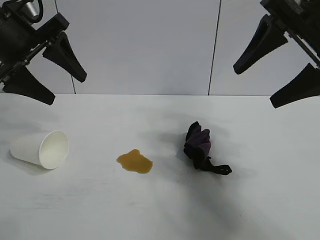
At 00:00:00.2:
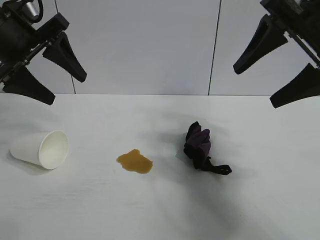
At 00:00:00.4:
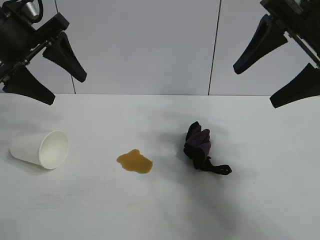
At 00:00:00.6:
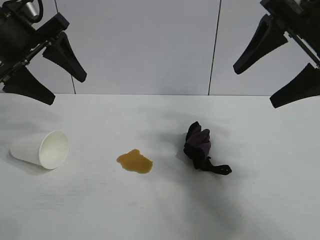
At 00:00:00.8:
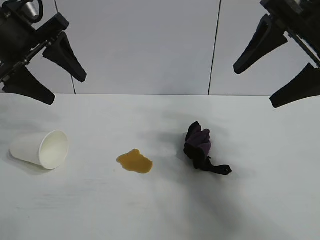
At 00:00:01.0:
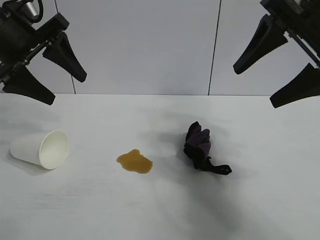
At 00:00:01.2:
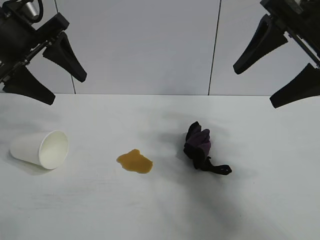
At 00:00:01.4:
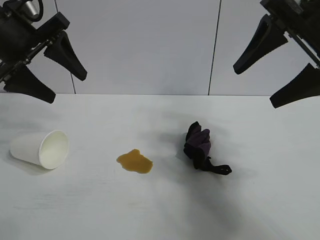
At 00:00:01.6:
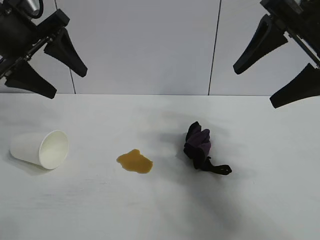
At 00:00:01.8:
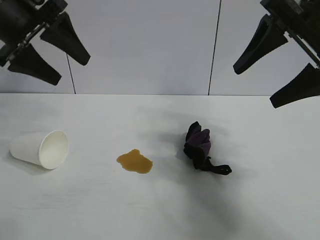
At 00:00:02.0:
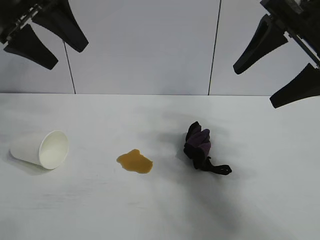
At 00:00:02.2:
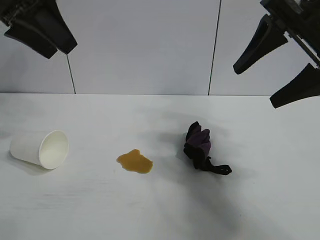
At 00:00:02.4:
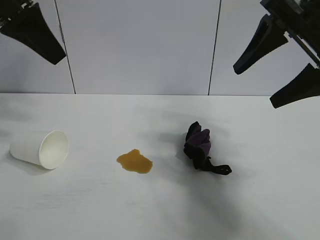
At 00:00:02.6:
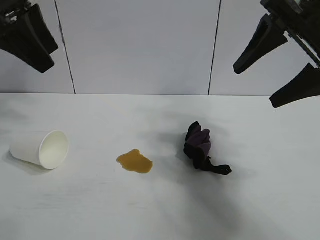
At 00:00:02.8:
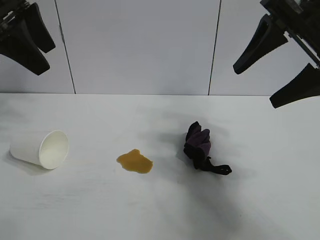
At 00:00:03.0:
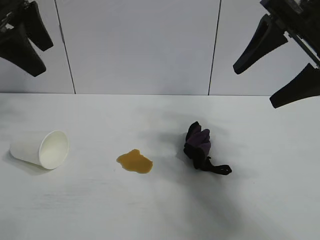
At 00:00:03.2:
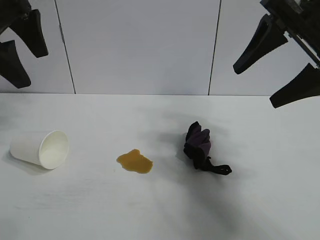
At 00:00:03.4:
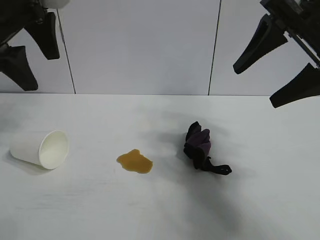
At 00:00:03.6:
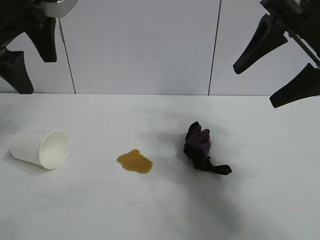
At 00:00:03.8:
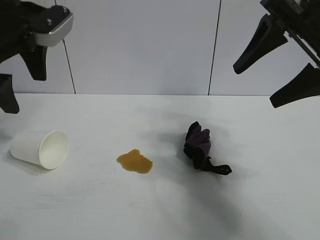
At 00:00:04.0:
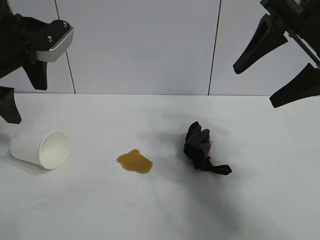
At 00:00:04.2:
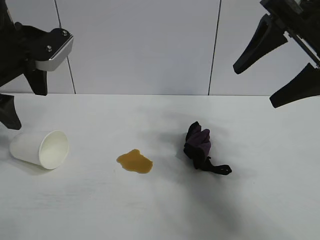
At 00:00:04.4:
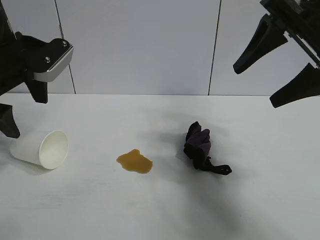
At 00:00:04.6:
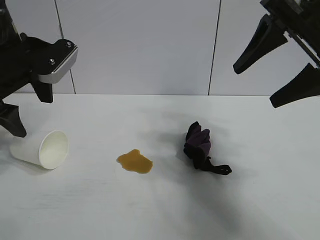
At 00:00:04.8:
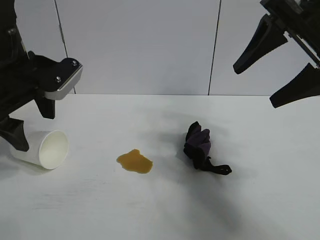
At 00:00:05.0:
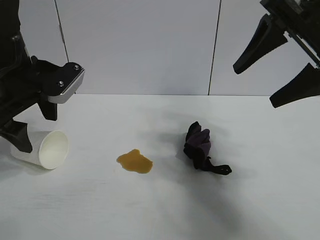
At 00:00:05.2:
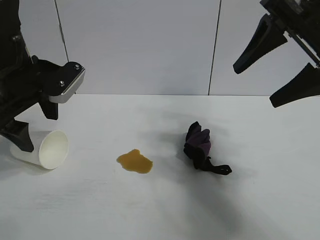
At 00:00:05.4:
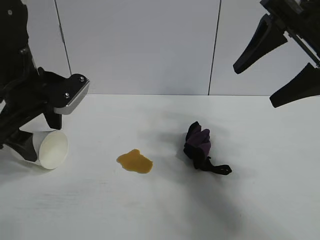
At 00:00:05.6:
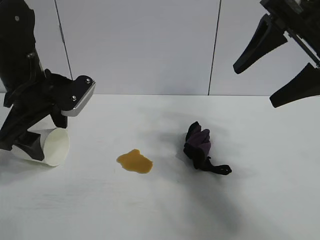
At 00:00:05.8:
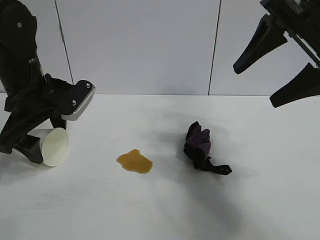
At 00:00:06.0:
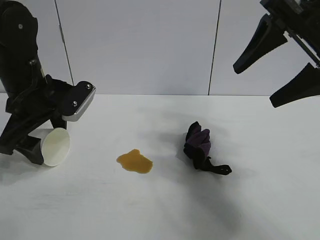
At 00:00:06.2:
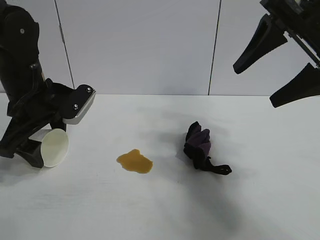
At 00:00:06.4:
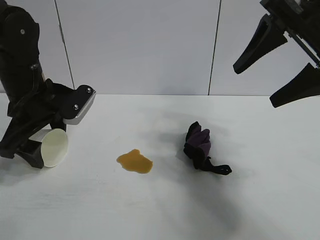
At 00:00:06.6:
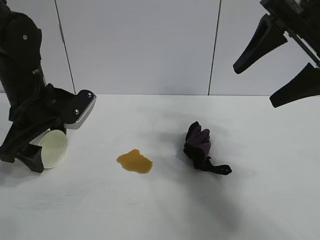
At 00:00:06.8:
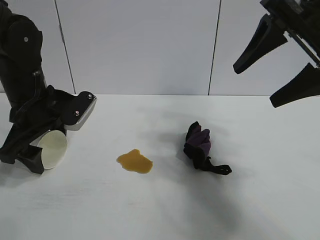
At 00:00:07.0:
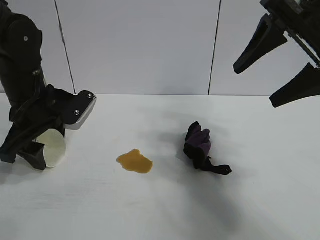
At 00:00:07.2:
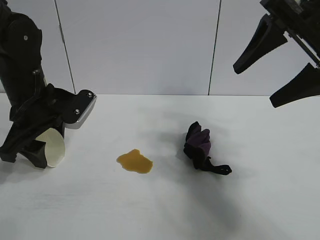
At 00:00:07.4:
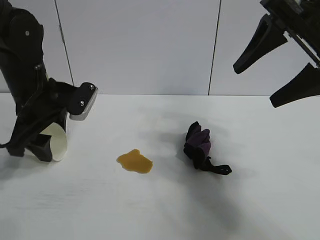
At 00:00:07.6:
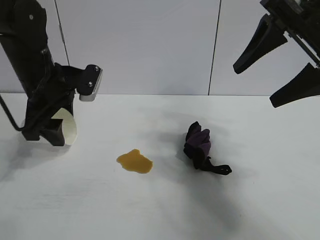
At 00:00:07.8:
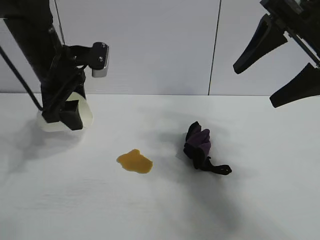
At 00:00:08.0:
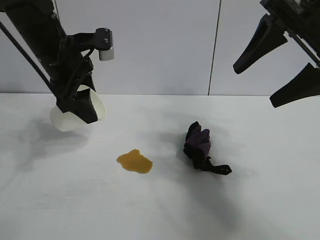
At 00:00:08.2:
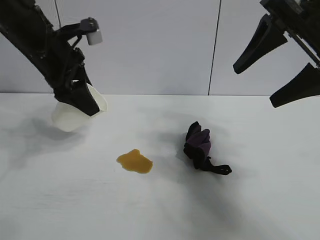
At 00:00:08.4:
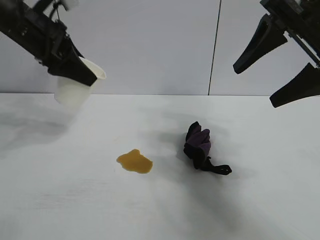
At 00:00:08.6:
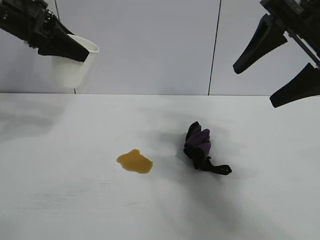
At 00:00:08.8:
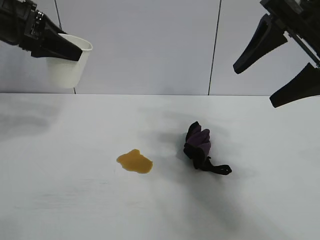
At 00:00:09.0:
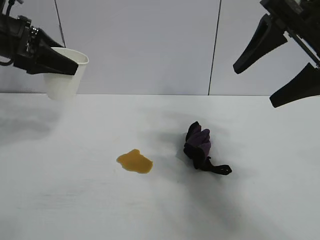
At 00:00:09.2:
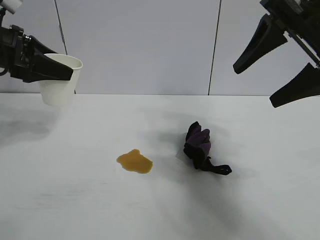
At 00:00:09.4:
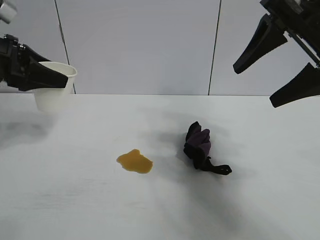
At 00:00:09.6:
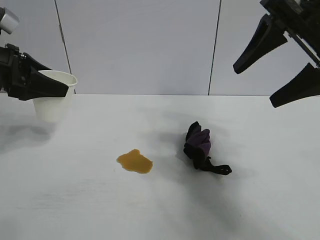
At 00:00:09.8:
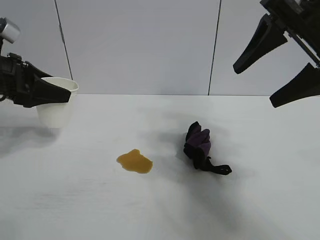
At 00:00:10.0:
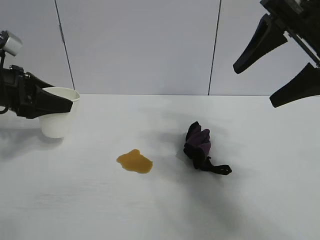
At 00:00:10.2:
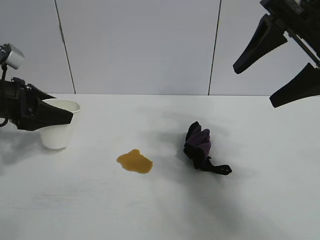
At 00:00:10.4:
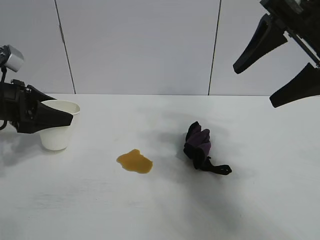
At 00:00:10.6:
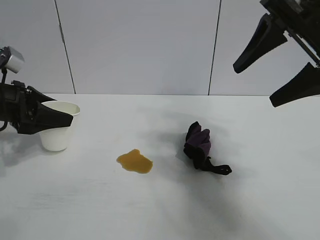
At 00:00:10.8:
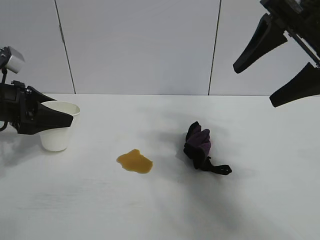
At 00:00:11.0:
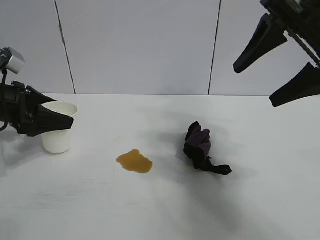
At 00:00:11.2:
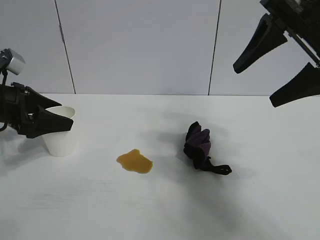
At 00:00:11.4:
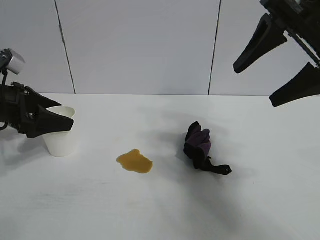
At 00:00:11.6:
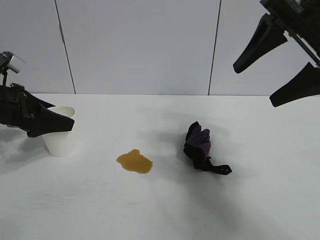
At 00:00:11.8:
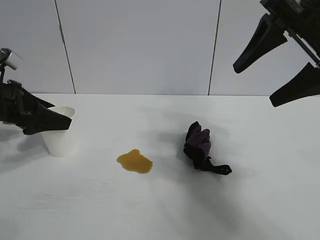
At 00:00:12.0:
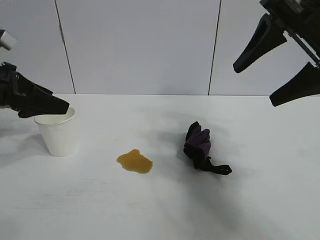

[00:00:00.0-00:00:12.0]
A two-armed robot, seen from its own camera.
Task of the whole recording: the left gripper pick up the fallen cup and place it upright, the right gripper grasp the black rag and wipe the stain on the table, the right gripper put the black rag back in its original position.
Step, 00:00:01.4 to 00:00:07.2: Grasp the paper cup with left gripper.
Step, 00:00:07.4 to 00:00:11.0: Stand the paper cup upright with left gripper.

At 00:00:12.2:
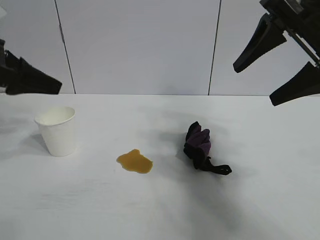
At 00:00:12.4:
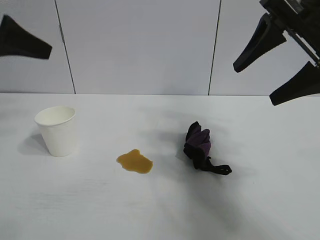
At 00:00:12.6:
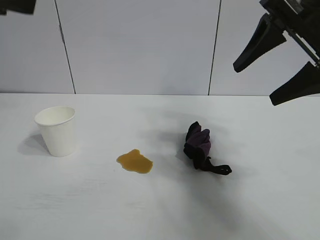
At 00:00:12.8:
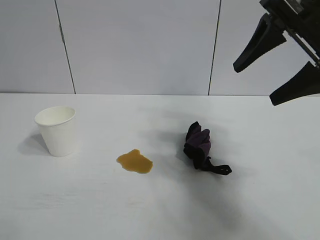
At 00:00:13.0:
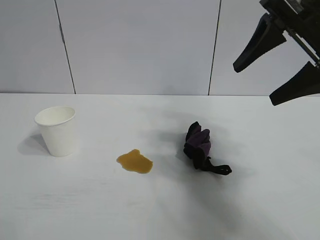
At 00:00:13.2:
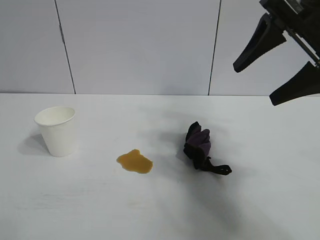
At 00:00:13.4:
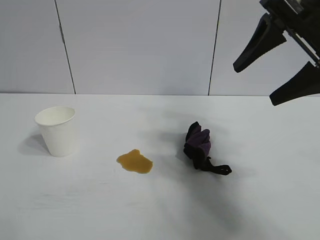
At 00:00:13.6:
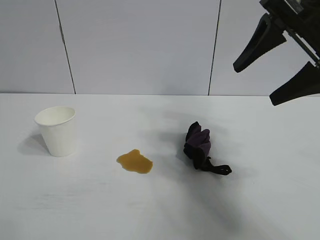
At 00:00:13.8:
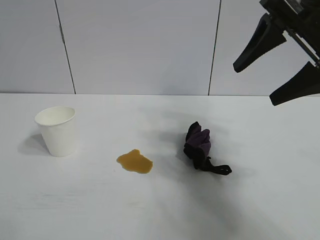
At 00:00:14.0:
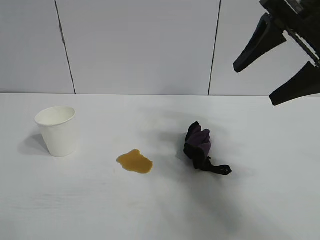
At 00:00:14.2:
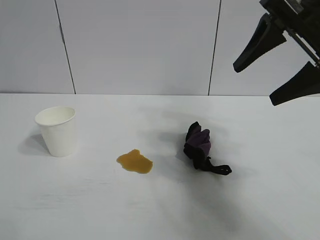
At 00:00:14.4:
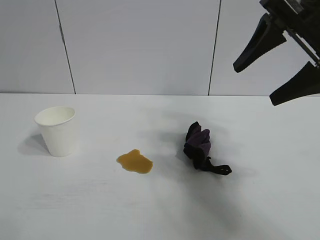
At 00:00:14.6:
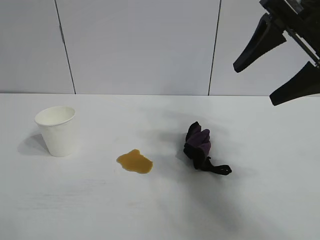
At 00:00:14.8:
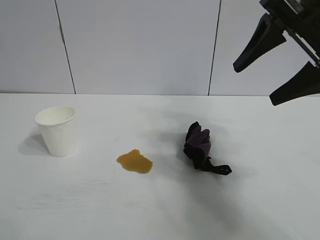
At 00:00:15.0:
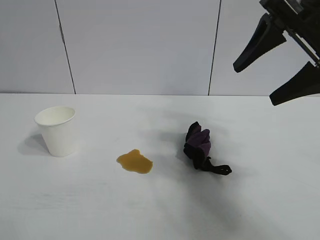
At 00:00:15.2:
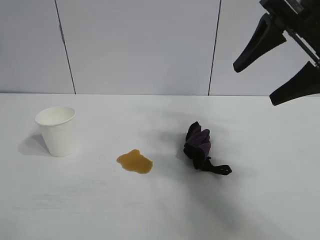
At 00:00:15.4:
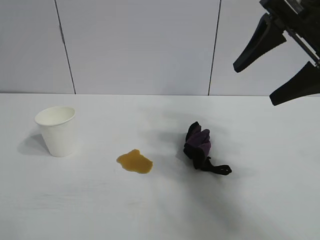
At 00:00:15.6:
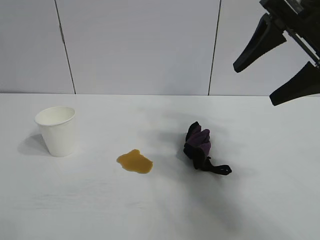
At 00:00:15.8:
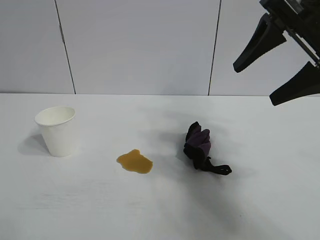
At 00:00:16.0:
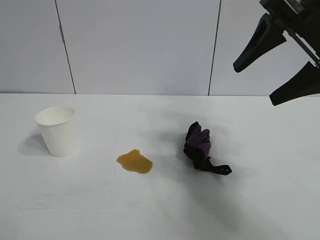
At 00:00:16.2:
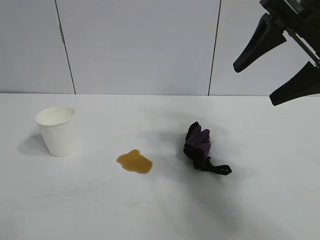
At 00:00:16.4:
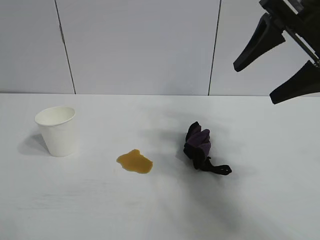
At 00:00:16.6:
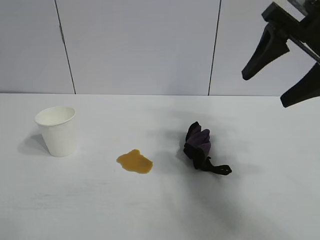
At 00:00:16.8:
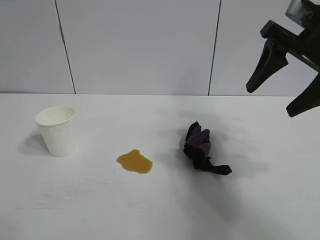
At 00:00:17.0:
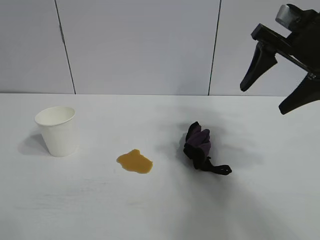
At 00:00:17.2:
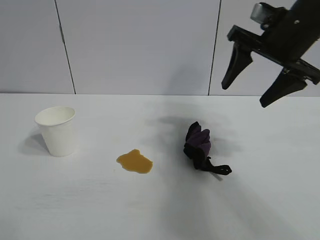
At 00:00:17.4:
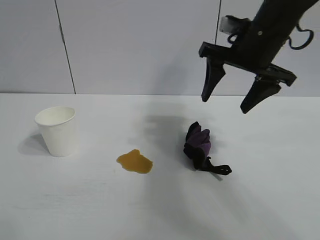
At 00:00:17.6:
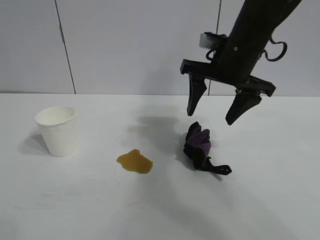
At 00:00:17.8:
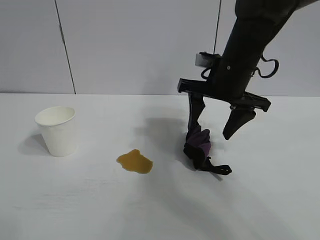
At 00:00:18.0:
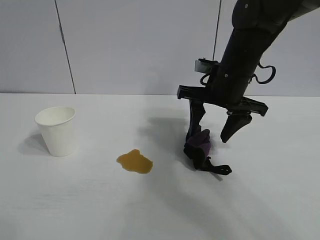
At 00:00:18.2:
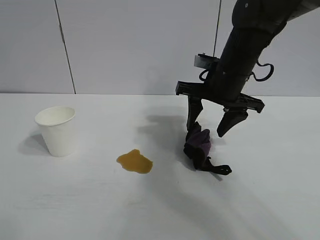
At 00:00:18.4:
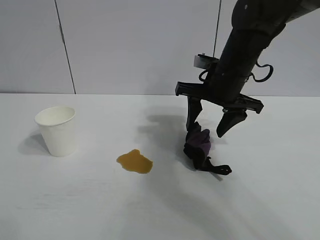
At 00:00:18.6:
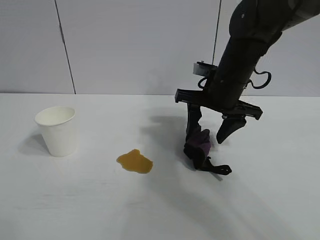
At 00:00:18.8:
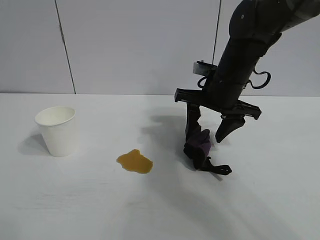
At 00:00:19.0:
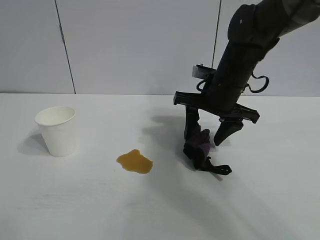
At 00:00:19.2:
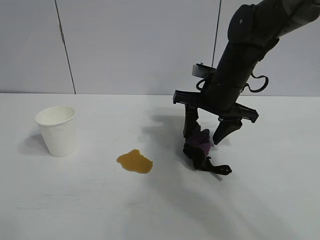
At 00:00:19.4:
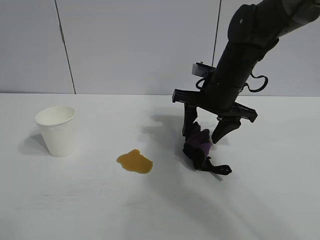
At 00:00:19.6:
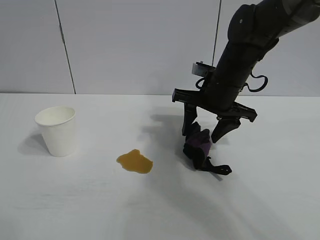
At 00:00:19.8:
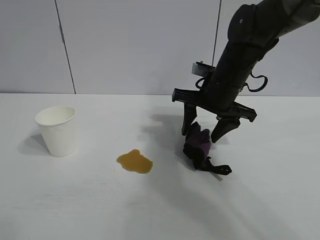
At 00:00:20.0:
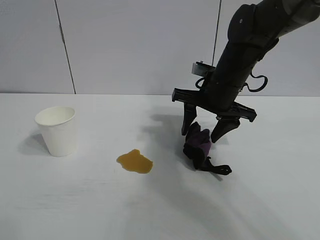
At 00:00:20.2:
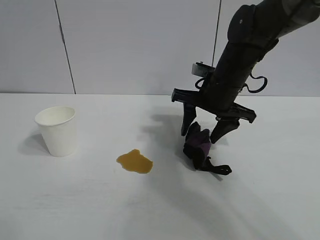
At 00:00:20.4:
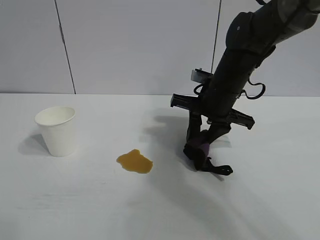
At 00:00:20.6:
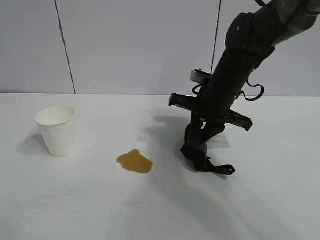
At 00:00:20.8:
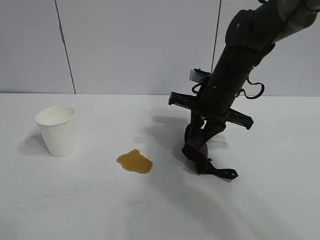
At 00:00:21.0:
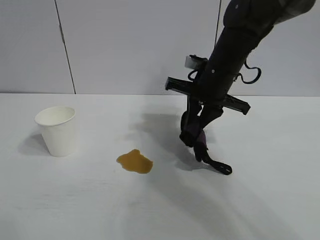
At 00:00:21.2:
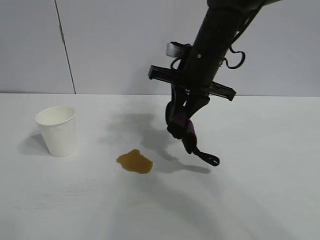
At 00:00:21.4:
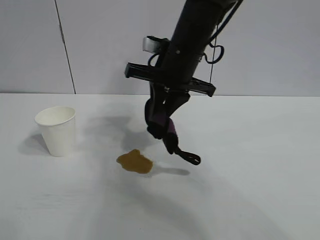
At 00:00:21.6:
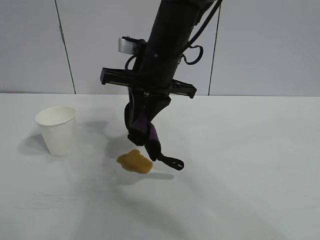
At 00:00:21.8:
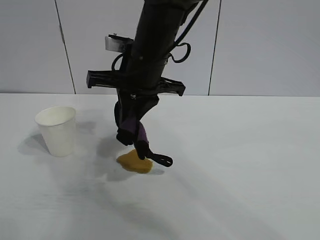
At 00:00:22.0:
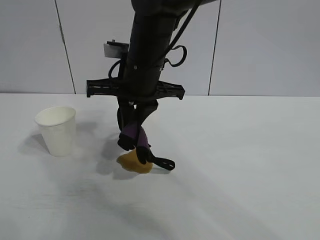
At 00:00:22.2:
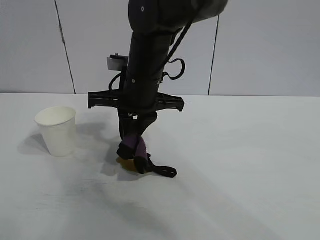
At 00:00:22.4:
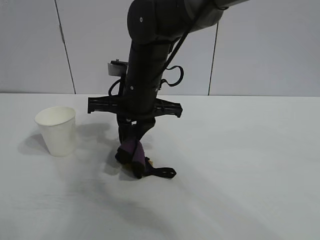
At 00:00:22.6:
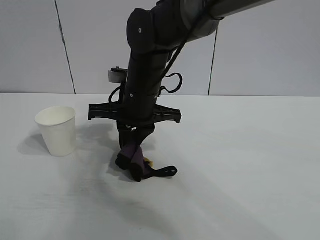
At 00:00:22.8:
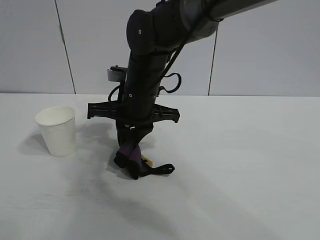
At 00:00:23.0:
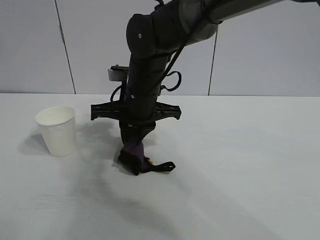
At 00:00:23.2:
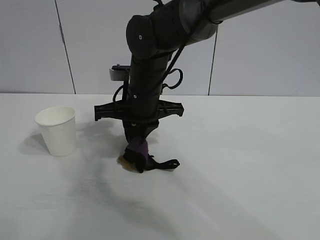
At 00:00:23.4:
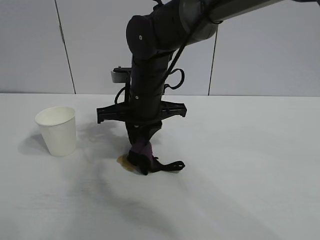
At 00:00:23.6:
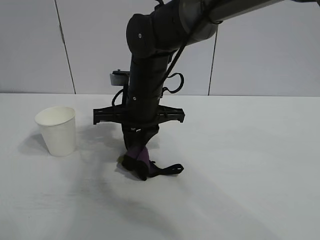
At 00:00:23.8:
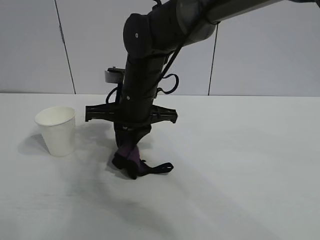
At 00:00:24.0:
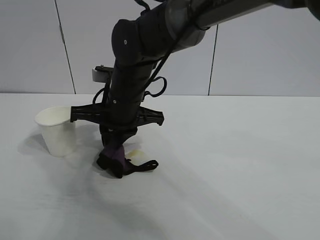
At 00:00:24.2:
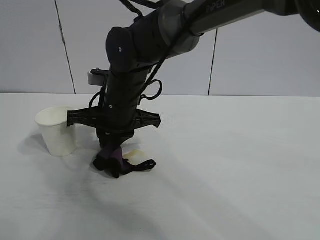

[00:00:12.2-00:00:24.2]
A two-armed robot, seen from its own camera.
Task of the whole recording: the left gripper pick up the fallen cup and place it upright, the right gripper grasp the black rag and wipe the stain on the table, the right gripper put the black rag back in its original position.
Step, 00:00:12.2 to 00:00:20.4: Grasp the rag with right gripper.
